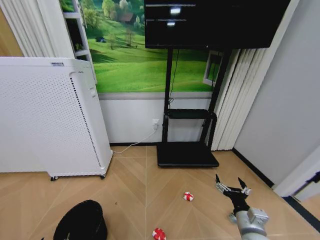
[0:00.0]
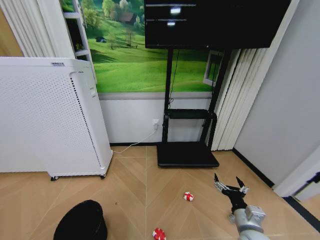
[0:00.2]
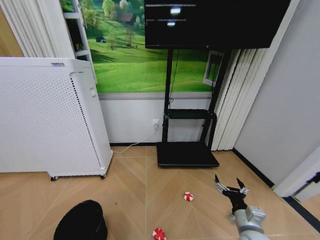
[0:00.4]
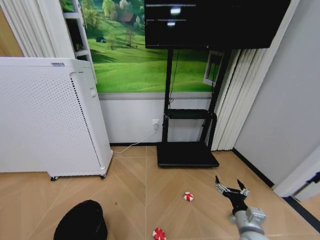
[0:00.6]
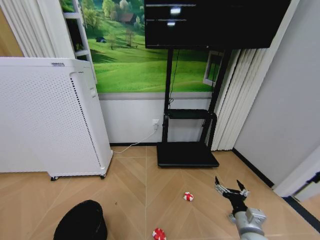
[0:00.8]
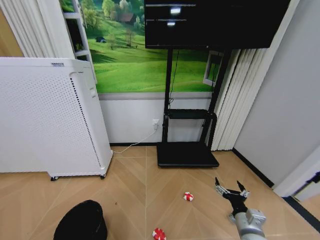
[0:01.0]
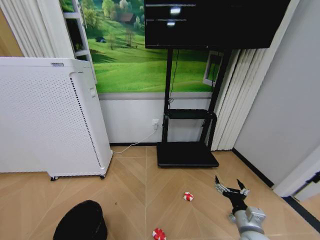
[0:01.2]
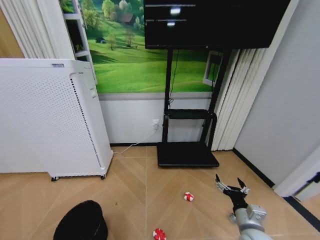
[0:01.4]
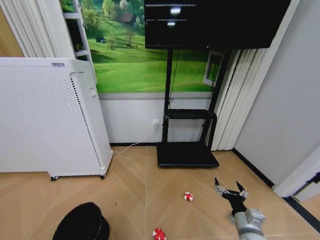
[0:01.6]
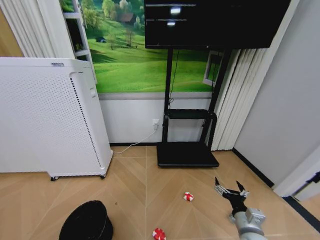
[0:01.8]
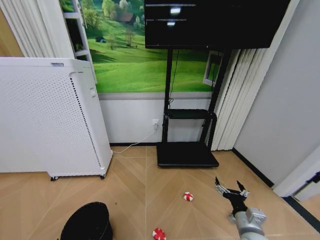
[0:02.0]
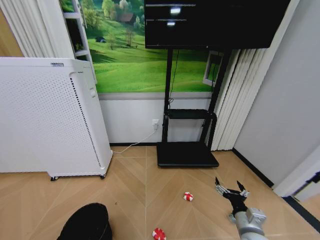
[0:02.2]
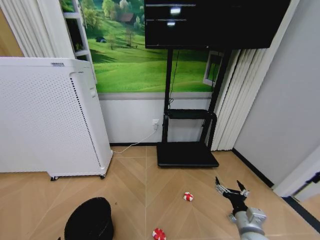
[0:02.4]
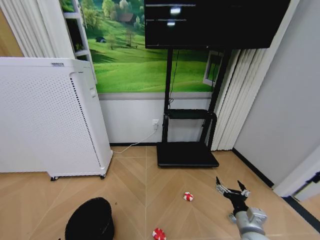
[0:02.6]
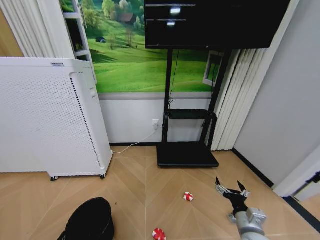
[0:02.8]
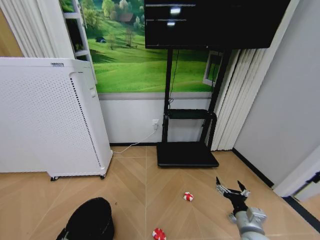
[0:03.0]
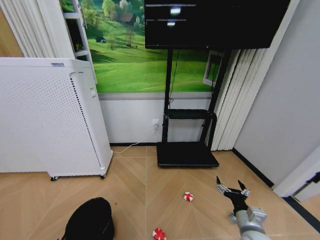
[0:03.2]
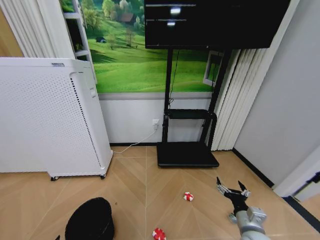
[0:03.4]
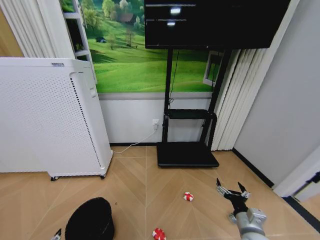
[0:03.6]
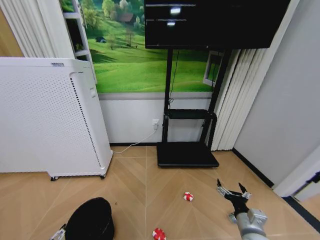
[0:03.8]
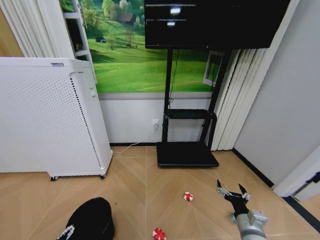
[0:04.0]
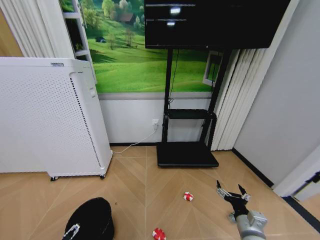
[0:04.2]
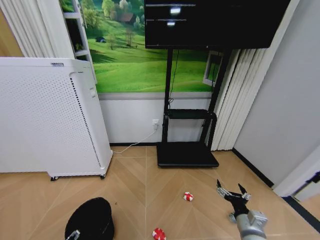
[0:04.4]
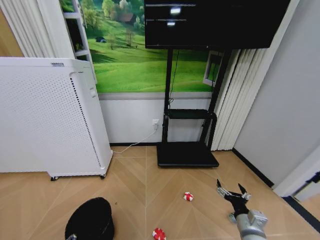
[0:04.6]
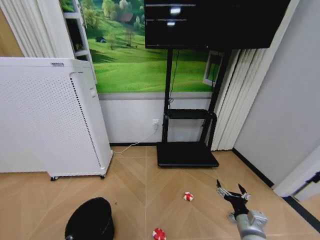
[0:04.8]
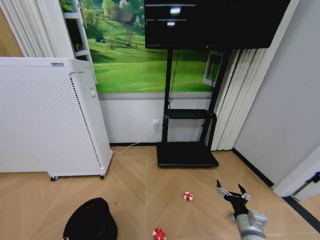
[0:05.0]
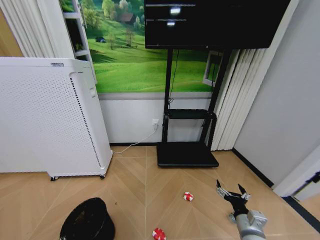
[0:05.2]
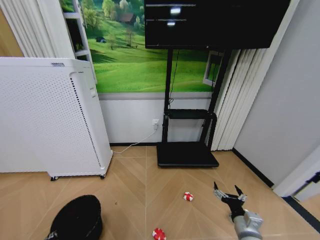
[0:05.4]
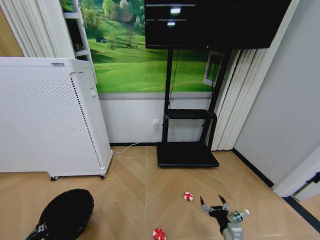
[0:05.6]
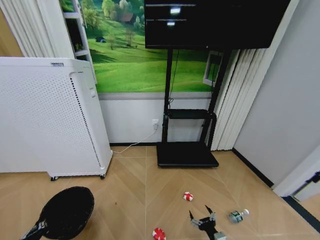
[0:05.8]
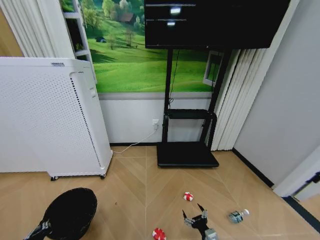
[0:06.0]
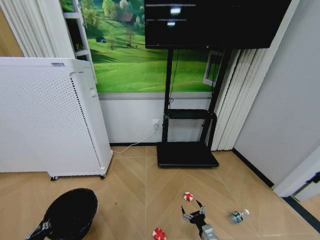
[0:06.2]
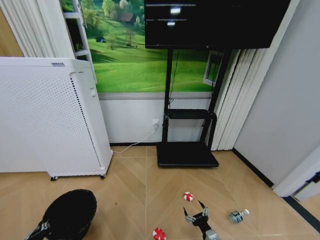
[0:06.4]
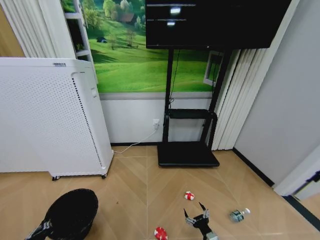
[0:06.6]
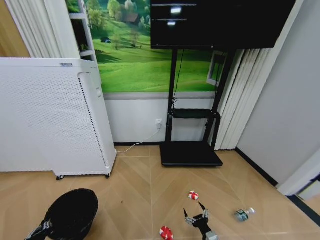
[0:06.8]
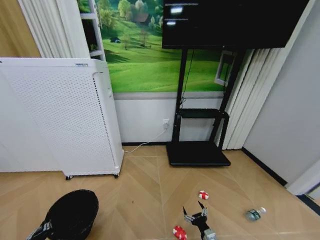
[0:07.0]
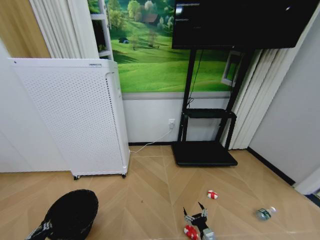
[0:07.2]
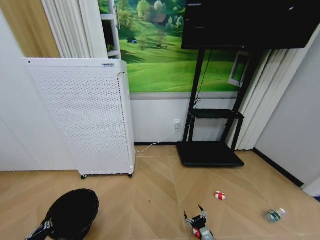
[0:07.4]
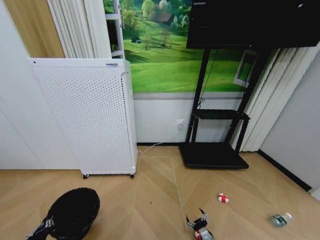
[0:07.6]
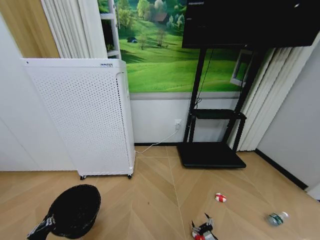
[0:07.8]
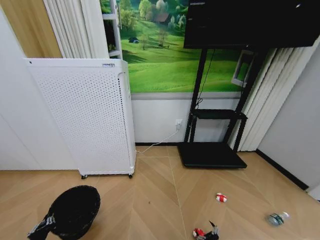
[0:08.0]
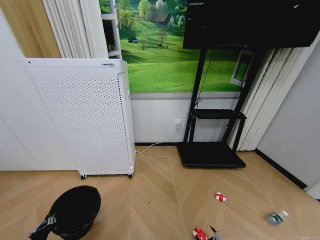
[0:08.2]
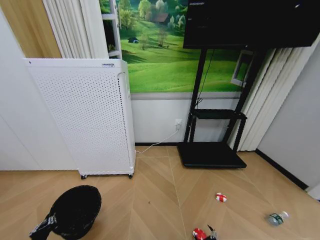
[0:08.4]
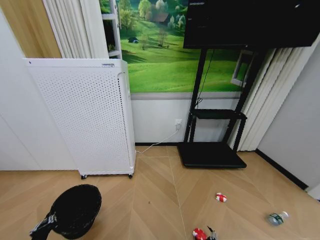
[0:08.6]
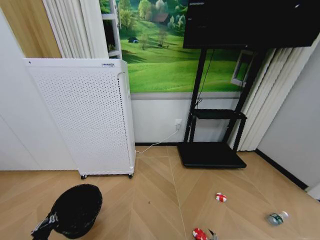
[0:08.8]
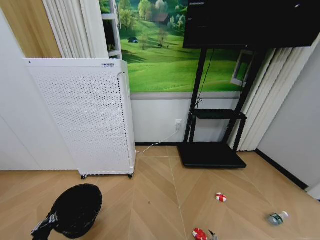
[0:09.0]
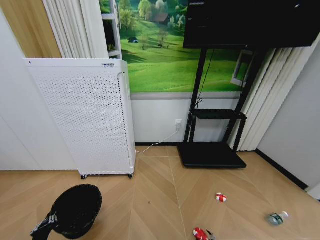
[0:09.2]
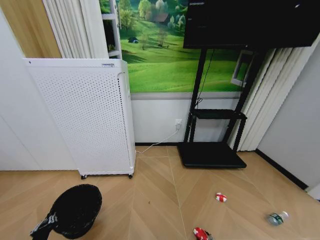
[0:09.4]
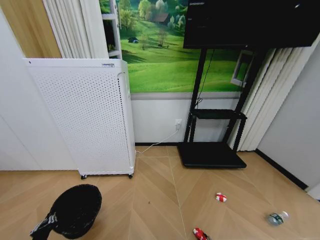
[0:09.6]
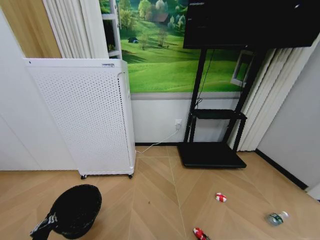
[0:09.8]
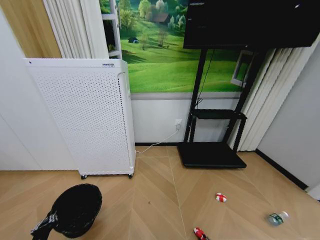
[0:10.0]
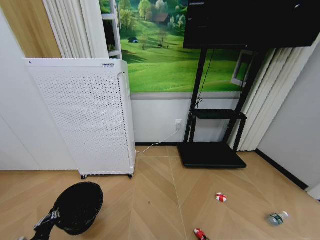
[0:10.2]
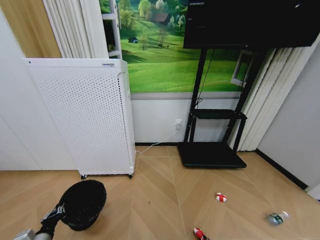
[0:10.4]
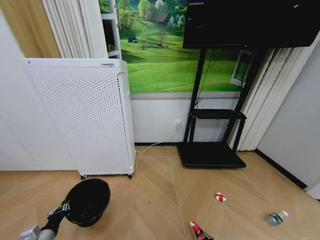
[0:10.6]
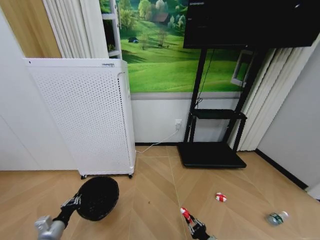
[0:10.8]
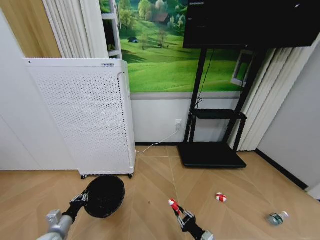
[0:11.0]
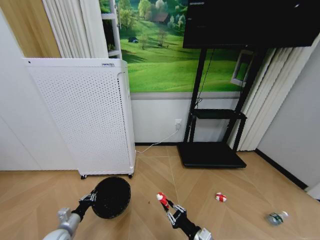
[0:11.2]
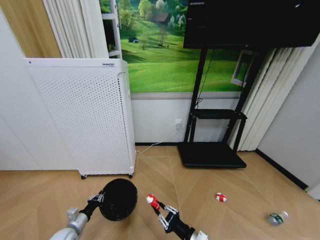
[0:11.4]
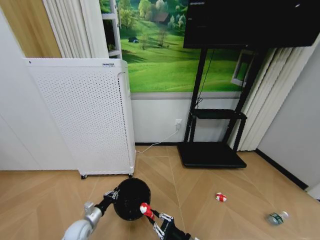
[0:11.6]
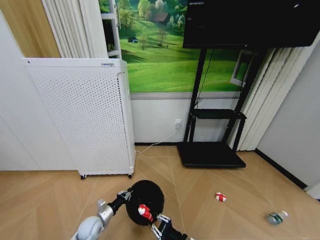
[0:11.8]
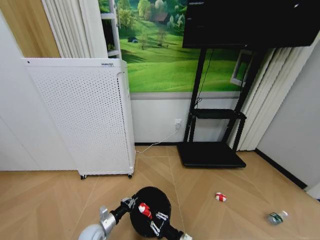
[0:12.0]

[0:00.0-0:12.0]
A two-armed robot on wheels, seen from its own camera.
Task of the whole recording: Pick up the trash bin and place the garbage on the floor into it.
0:01.6 to 0:03.0: The left gripper closes.
0:04.4 to 0:06.0: The right gripper shifts about 15 cm downward and to the left; the left gripper closes.
0:06.0 to 0:07.6: The right gripper heads downward, covering roughly 10 cm.
0:07.6 to 0:09.0: The right gripper moves backward, roughly 5 cm.
0:10.4 to 0:12.0: The right gripper is displaced upward and to the left by roughly 20 cm; the left gripper heads to the right, forward and downward, covering some 20 cm.

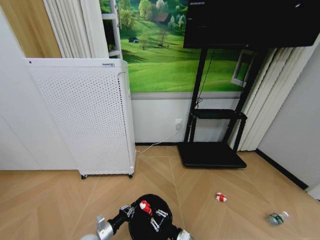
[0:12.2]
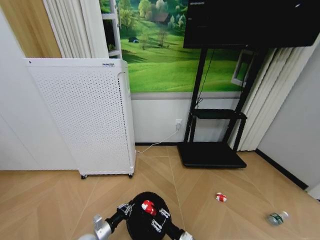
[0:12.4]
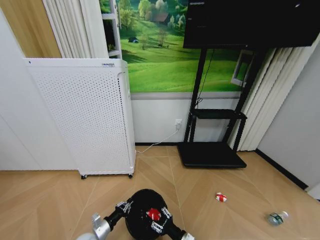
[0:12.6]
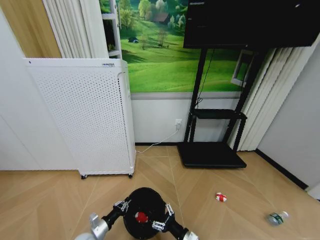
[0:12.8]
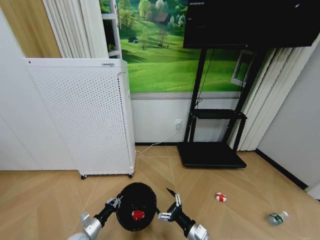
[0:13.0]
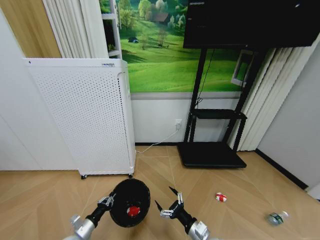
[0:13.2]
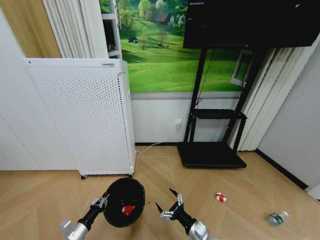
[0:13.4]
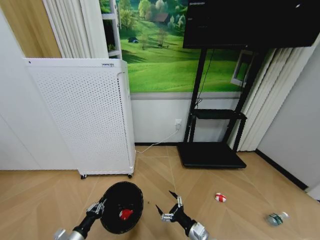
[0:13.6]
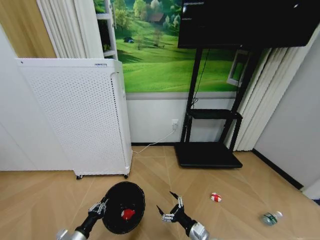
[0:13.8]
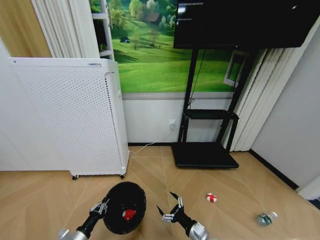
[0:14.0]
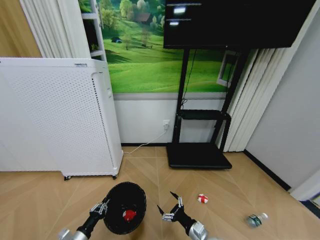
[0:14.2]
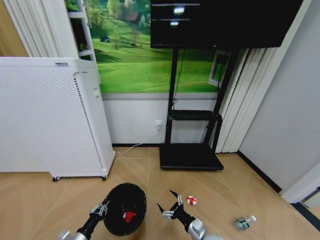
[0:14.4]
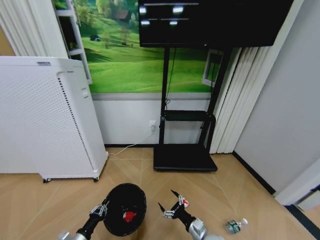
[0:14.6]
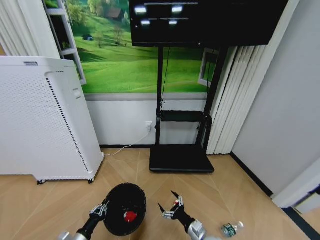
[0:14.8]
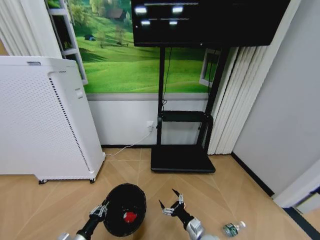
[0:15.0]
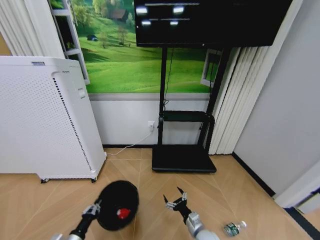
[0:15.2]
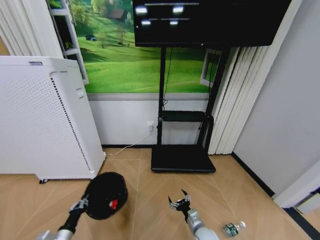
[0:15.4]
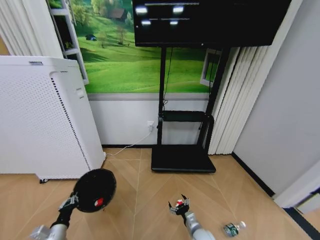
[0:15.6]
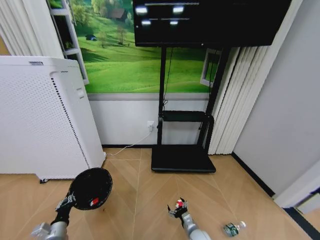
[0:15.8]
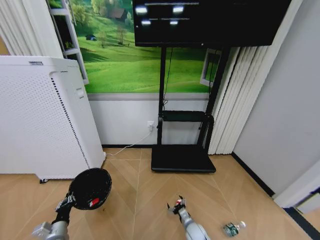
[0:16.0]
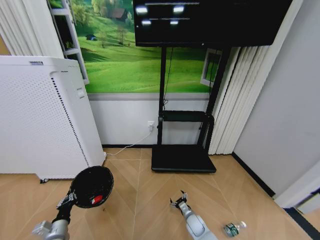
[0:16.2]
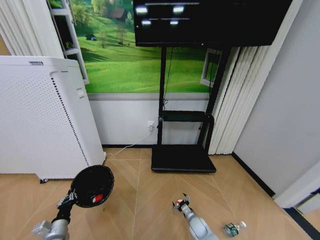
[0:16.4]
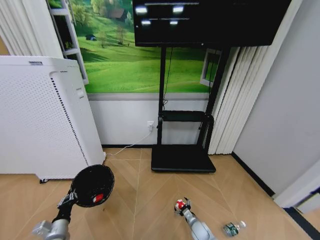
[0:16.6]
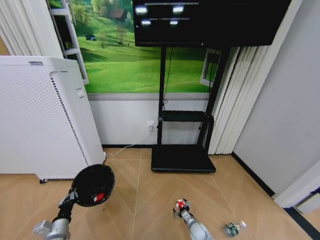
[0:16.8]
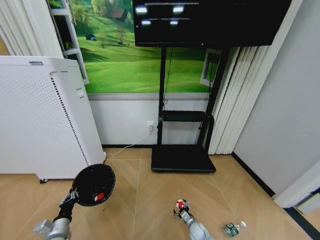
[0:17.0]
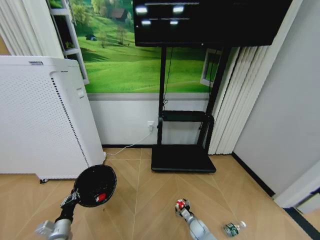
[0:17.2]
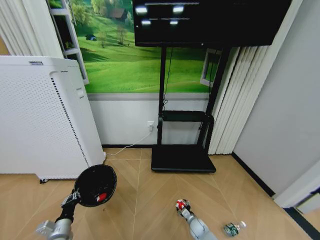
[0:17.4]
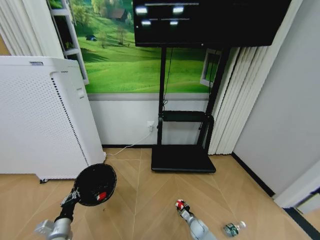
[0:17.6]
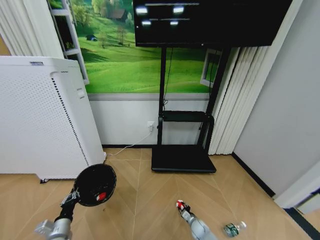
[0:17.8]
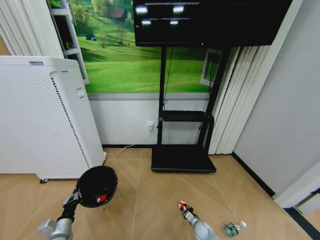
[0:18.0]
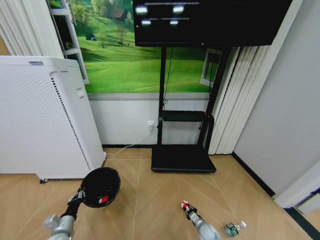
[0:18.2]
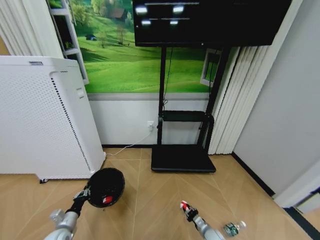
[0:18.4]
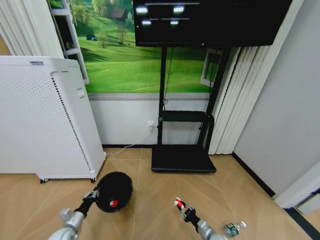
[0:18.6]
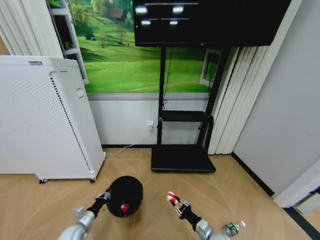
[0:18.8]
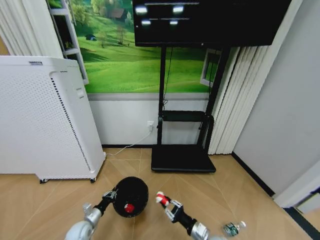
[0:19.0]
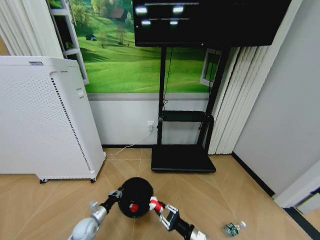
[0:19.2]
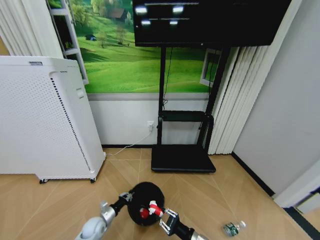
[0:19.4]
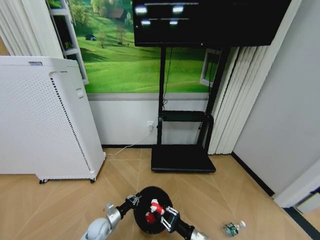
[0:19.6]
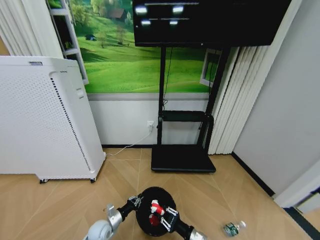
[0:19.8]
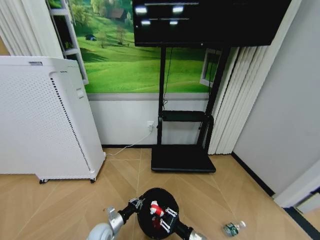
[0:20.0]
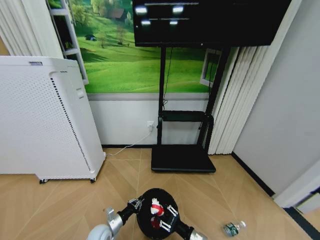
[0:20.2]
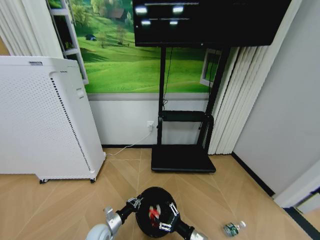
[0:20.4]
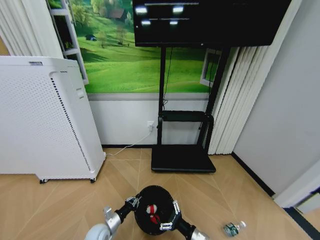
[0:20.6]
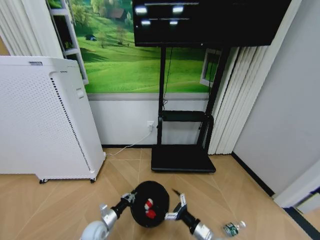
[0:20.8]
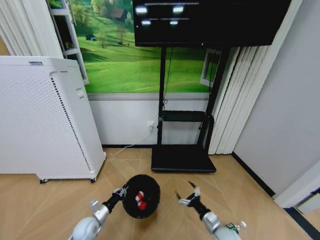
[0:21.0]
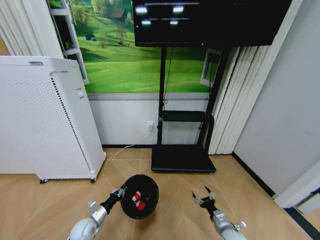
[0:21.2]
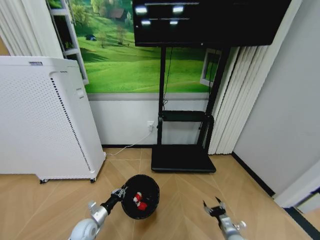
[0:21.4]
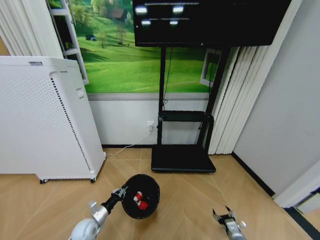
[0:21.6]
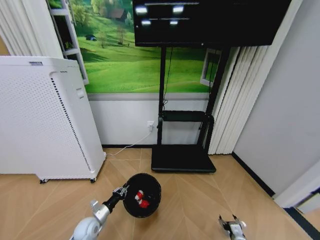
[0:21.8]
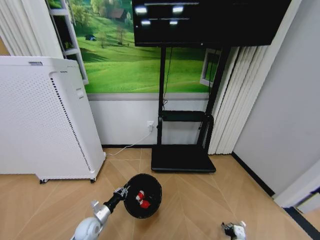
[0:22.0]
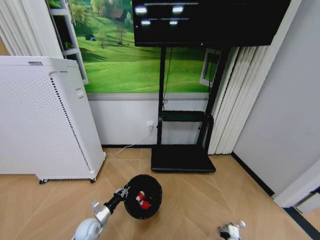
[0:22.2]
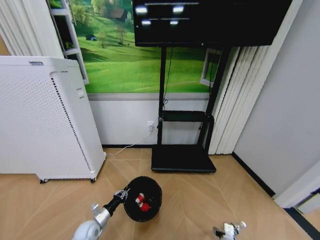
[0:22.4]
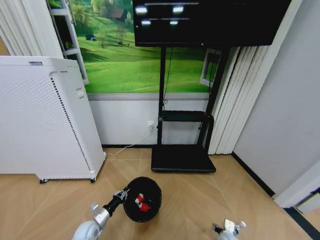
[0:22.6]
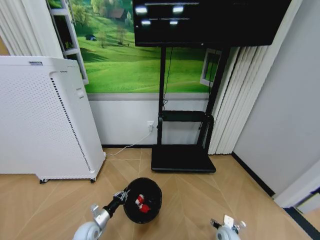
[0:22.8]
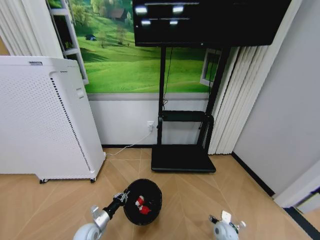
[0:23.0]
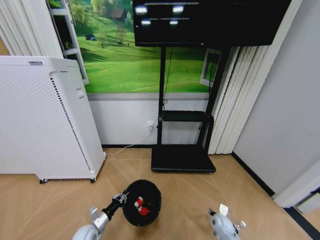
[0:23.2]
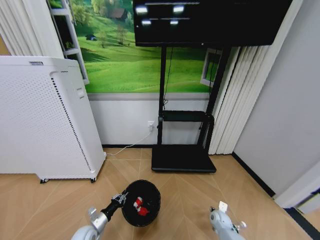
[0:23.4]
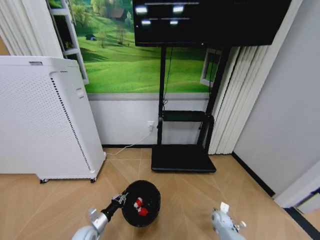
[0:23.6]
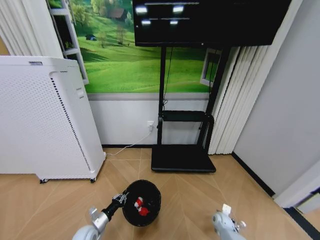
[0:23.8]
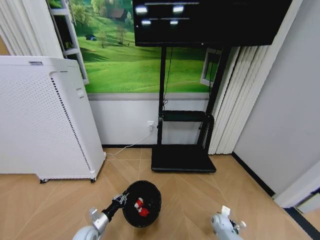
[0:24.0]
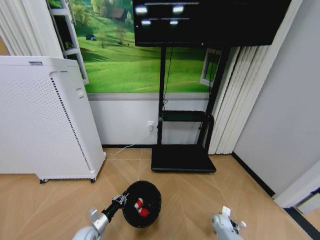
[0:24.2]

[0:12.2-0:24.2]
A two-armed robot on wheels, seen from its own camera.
Task of the whole recording: Pick up the trash bin and place the garbage on the floor into it.
0:12.2 to 0:13.8: The left gripper travels to the left and backward by approximately 10 cm. The right gripper moves about 5 cm, and opens.
0:13.8 to 0:15.2: The right gripper ends up approximately 5 cm from where it was.
0:15.2 to 0:16.6: The left gripper moves some 5 cm. The right gripper goes approximately 15 cm downward and forward.
0:16.6 to 0:18.2: The right gripper closes.
0:18.2 to 0:19.8: The left gripper shifts some 15 cm to the right, forward and downward. Meanwhile the right gripper travels upward and backward by some 20 cm.
0:19.8 to 0:21.2: The right gripper travels to the right by approximately 10 cm, and opens; the left gripper travels to the left by roughly 5 cm.
0:21.2 to 0:22.6: The right gripper heads downward, covering approximately 5 cm.
0:22.6 to 0:24.2: The right gripper moves forward and downward, approximately 10 cm.
